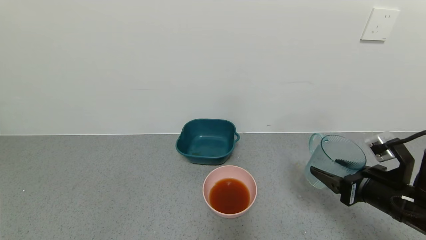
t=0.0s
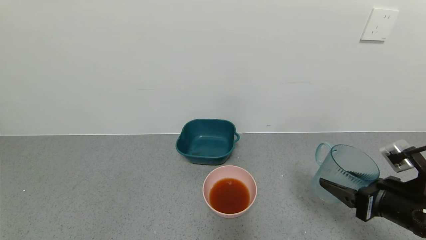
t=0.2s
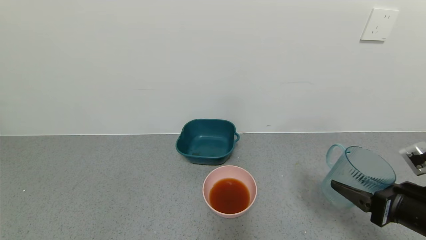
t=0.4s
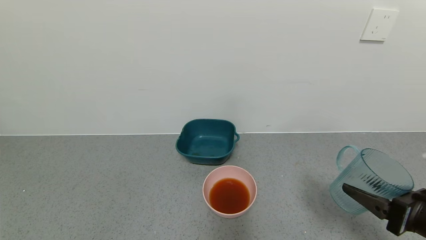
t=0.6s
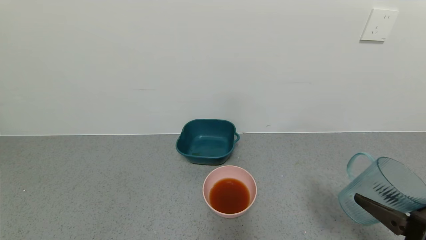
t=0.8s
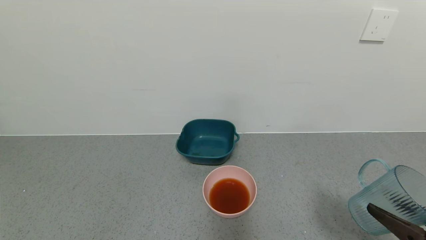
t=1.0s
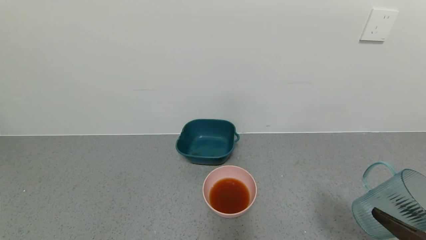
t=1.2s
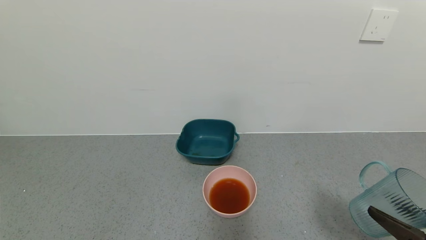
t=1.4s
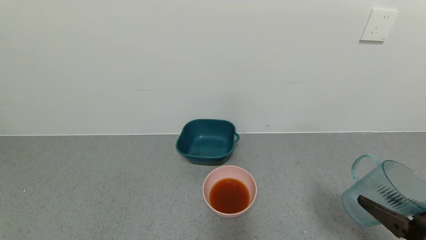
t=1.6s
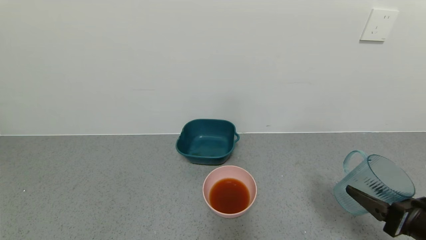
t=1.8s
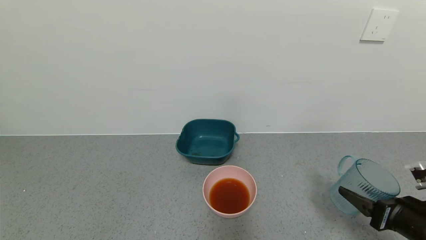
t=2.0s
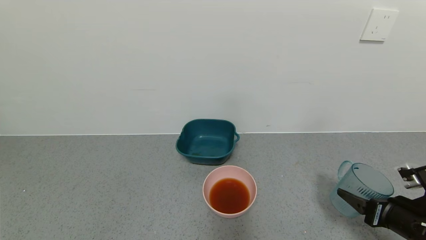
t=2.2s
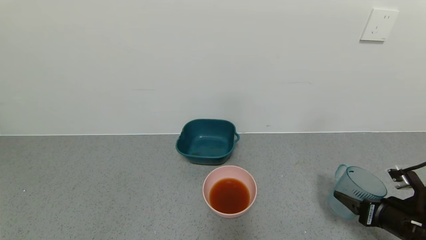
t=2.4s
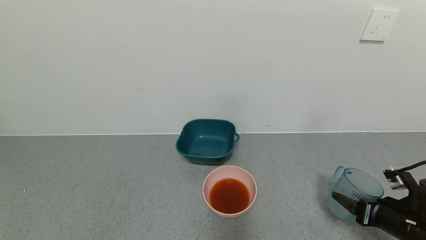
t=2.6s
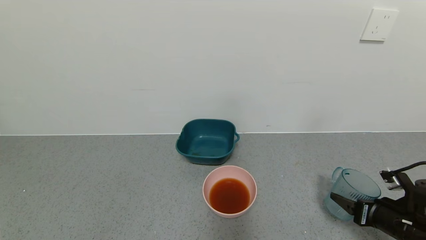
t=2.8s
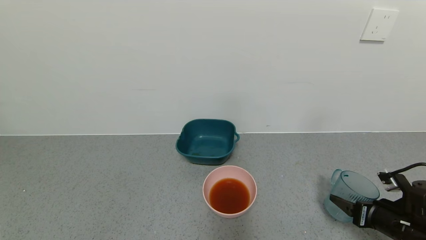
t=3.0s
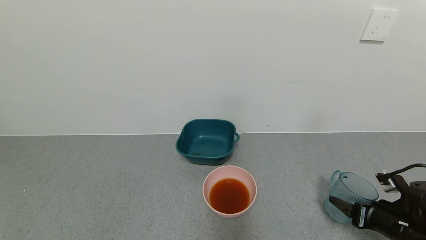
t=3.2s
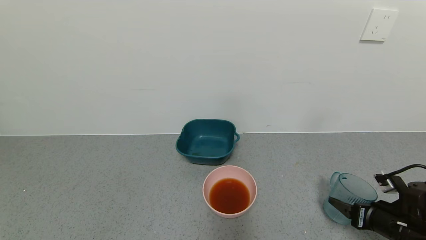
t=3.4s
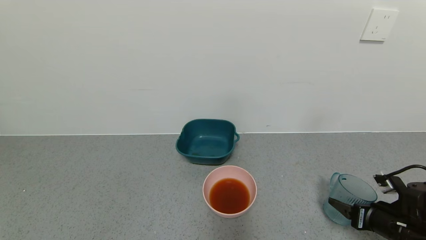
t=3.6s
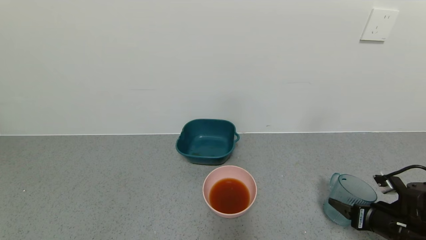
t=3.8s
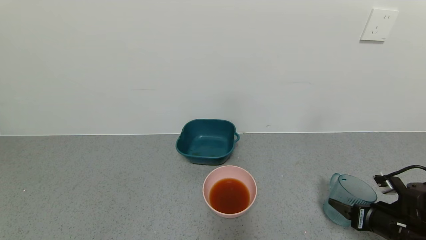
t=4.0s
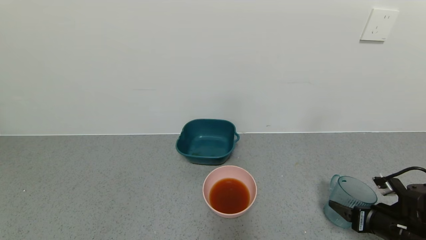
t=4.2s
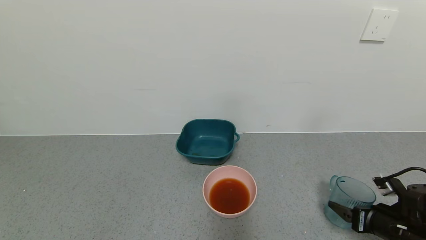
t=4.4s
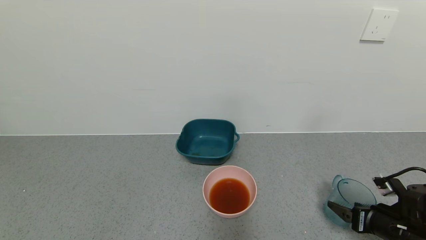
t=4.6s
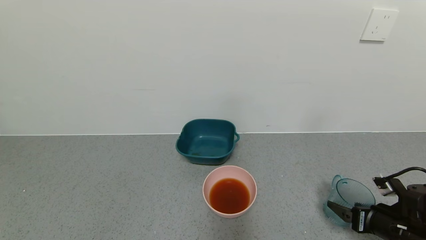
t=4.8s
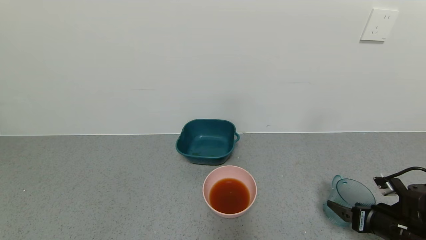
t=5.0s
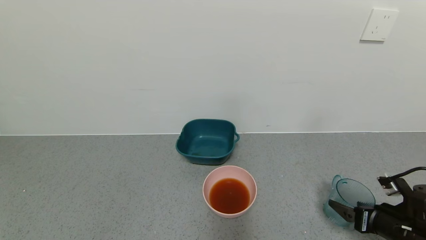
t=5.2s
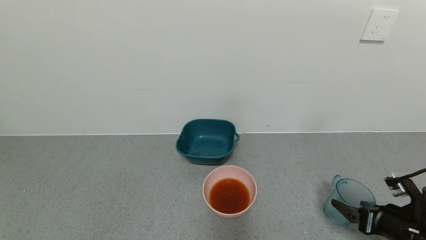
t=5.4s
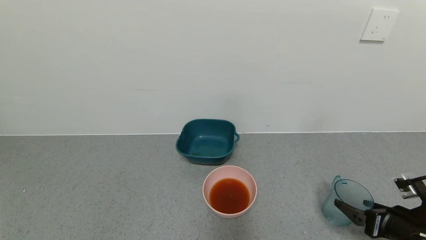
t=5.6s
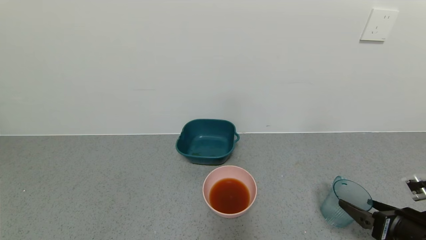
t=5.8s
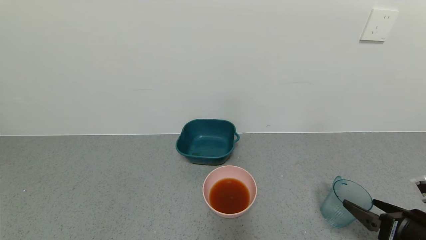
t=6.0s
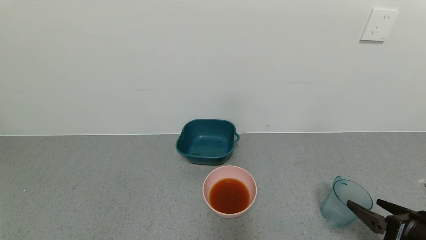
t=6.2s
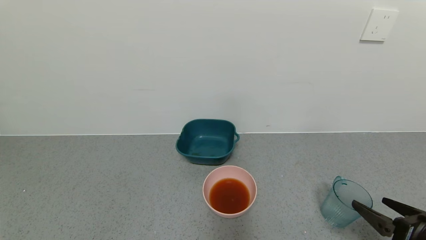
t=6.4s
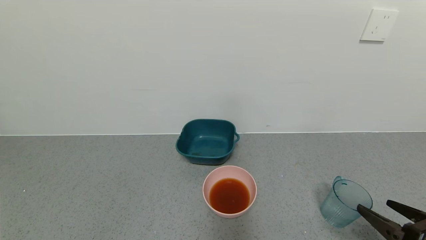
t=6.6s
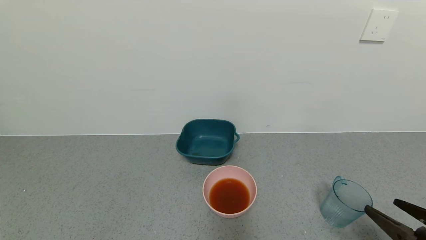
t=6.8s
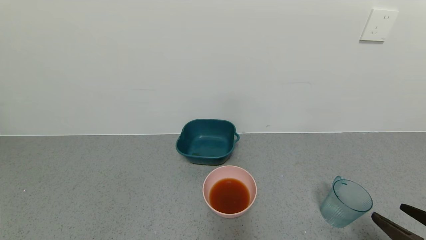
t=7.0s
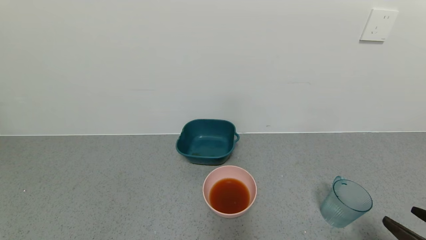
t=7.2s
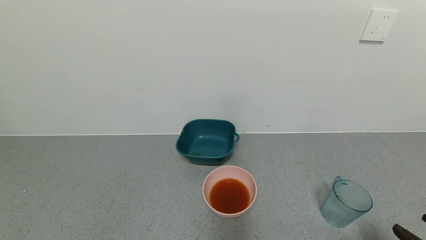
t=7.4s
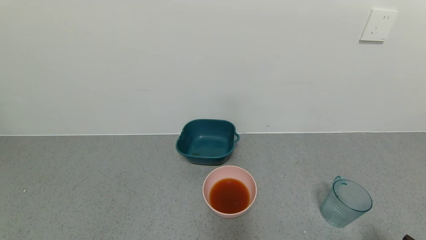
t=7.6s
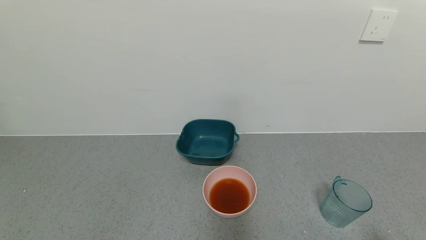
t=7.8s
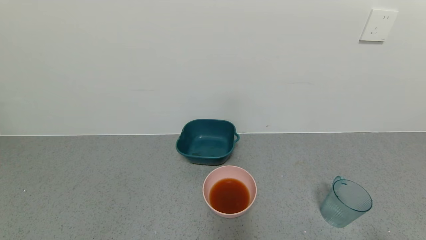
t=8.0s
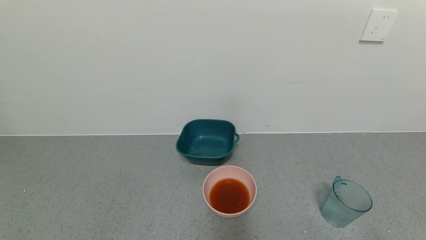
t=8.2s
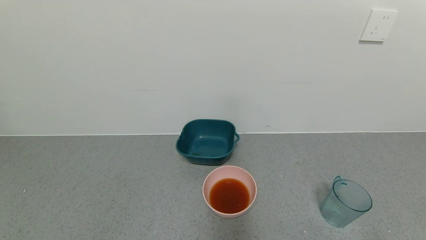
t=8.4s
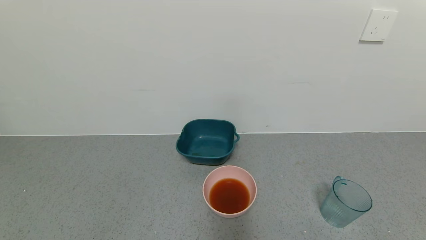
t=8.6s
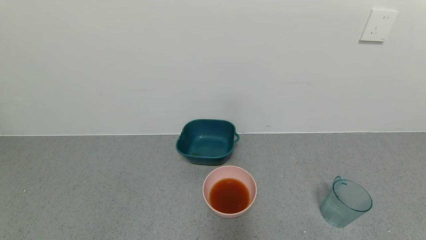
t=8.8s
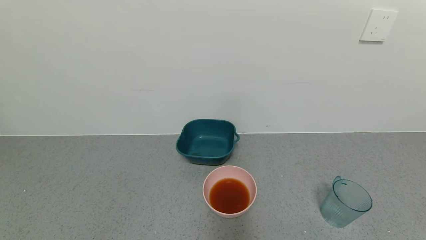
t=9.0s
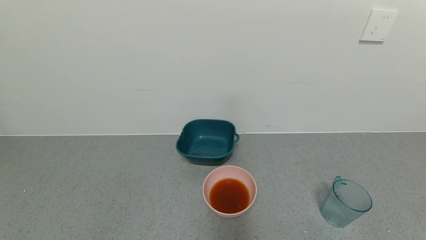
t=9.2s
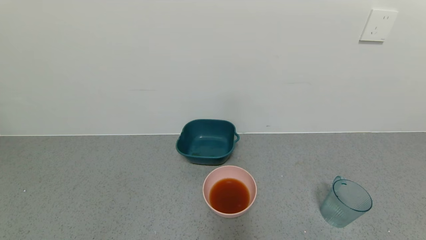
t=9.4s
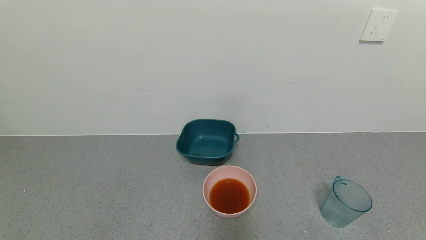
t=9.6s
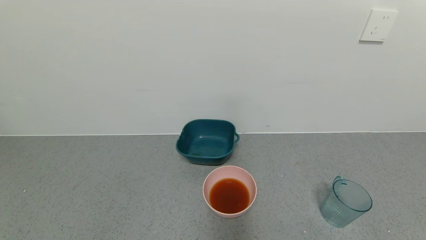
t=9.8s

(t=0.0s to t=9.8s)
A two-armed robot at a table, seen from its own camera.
Task of the whole recording: use a gripper to pick up the cup and pour the liquid into a bowl or tray.
Step, t=0.0s - t=5.2s: Place blue cup with tea on the table with right gripper.
t=0.0s - t=1.4s: The right gripper moves backward, approximately 10 cm.
t=1.4s - t=2.8s: The right gripper travels forward and downward by about 15 cm.
t=2.8s - t=4.2s: The two grippers keep their place.
t=4.2s - t=5.6s: The right gripper opens up.
t=5.6s - t=7.0s: The right gripper shifts roughly 10 cm backward and upward.
t=7.0s - t=8.4s: The right gripper goes approximately 10 cm backward.
